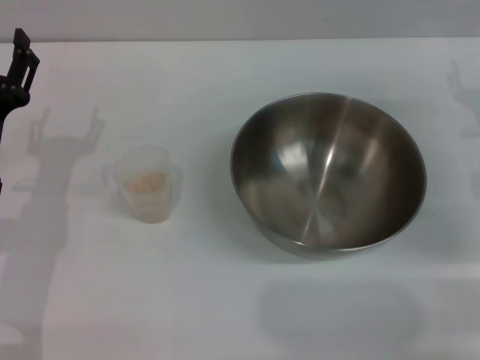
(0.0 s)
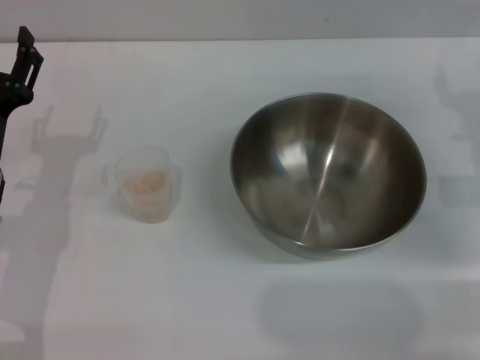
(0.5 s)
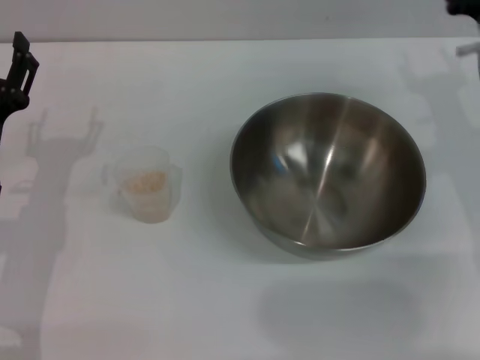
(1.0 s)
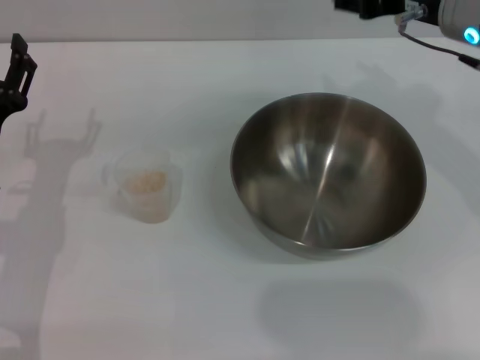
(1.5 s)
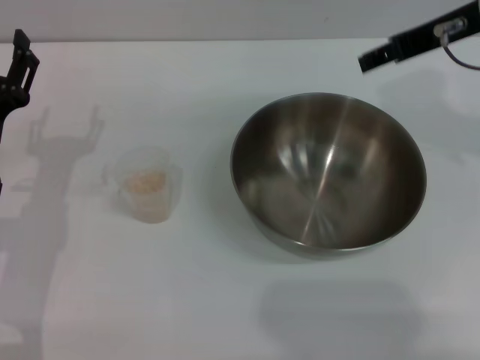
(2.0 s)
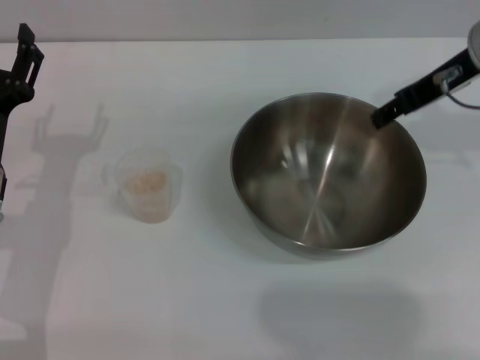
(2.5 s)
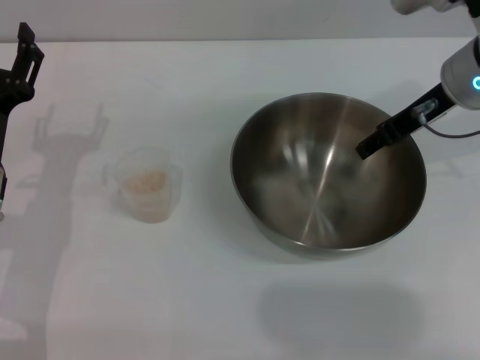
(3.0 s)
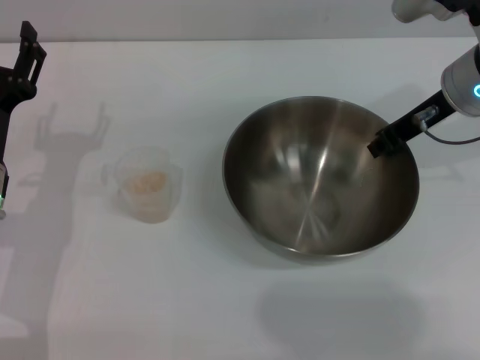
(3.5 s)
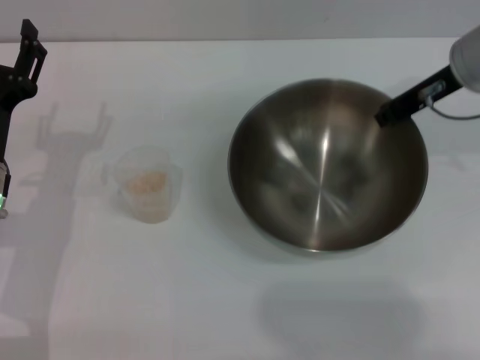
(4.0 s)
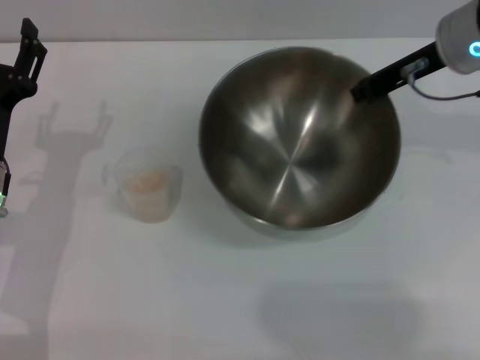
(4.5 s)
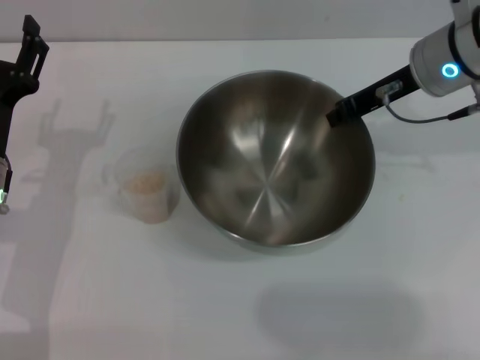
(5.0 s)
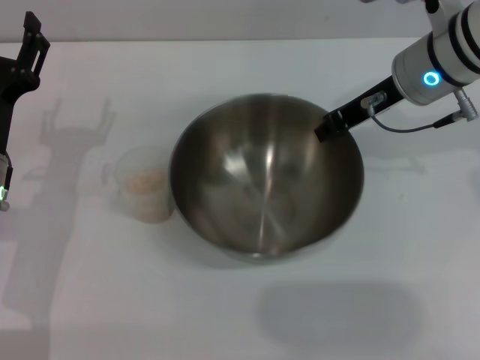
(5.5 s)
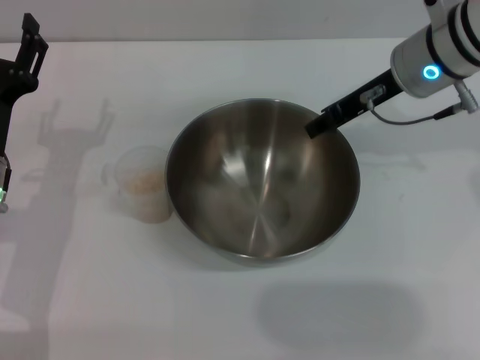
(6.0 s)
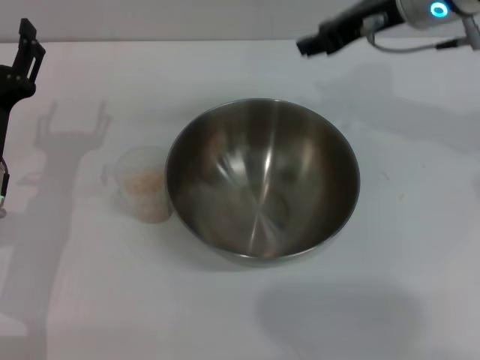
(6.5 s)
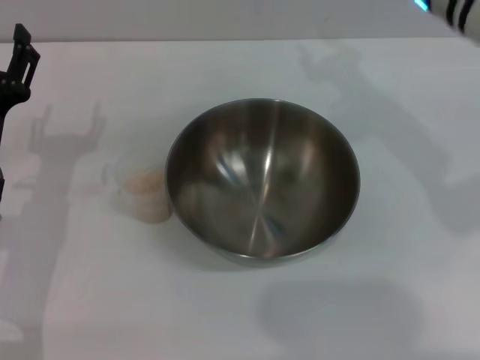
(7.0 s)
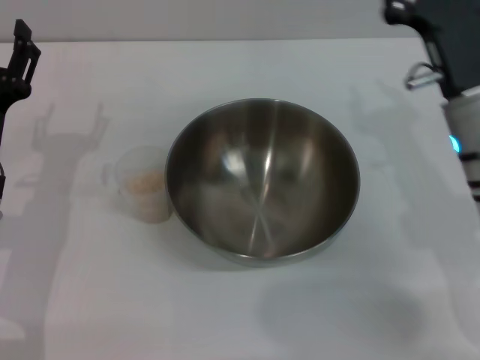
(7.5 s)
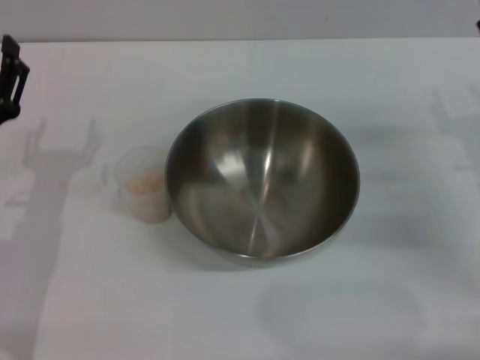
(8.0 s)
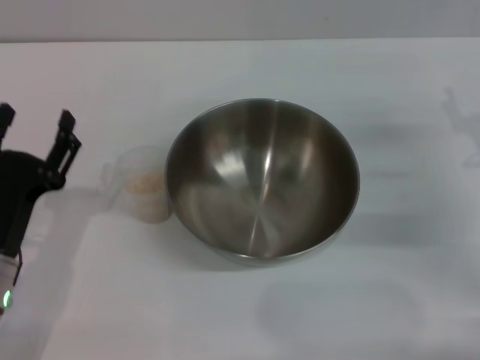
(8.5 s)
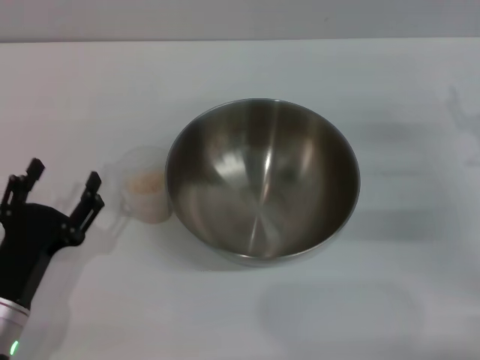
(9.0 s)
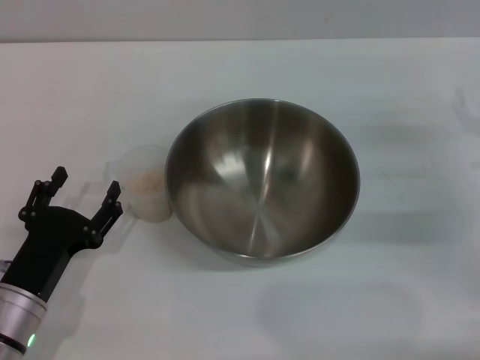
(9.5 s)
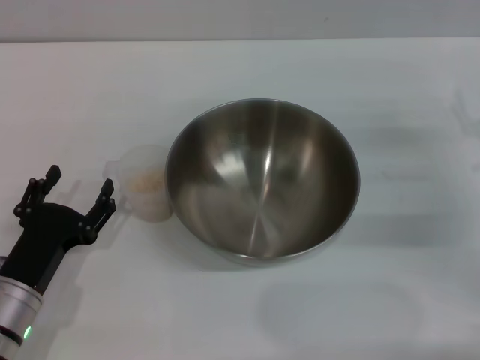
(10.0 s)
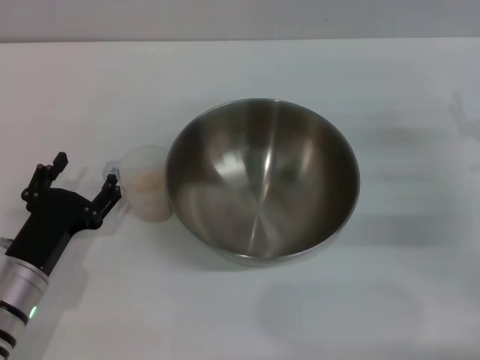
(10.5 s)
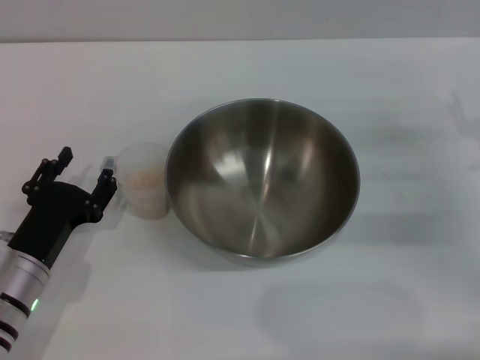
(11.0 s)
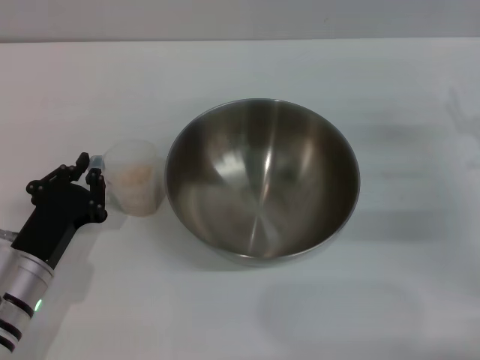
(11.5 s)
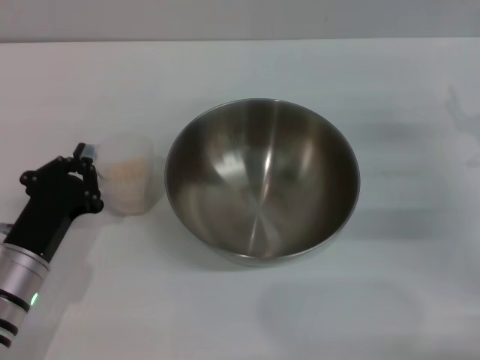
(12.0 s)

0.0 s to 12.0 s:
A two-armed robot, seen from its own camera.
Task of the whole recording: Place the bowl in the middle of the table with one hand and pour the rice from the grain cup into it with the other hand.
Step, 0.0 to 4.0 s: Pick up the bowl with the right gripper.
Step, 4.5 to 6.0 s: Place the bowl in the center of view with the right gripper.
Step, 6.5 to 12.0 s: Pick up the cup with rice in it with the left gripper.
0.0 to 2.0 s: The right gripper shifts about 15 cm upward and to the left.
2.0 to 4.0 s: The right gripper goes about 5 cm downward, and closes.
6.0 to 8.0 s: The right gripper is displaced to the right, downward and backward by roughly 20 cm, and opens up.
8.0 to 10.0 s: The left gripper heads backward and downward, covering about 10 cm.
10.0 to 12.0 s: The left gripper closes up.

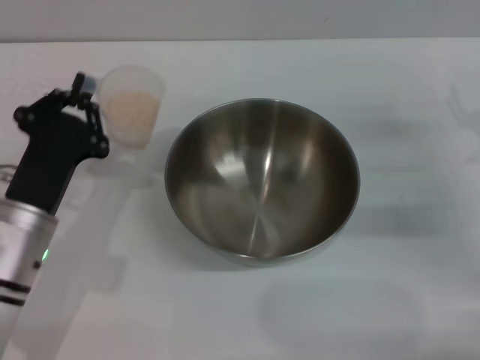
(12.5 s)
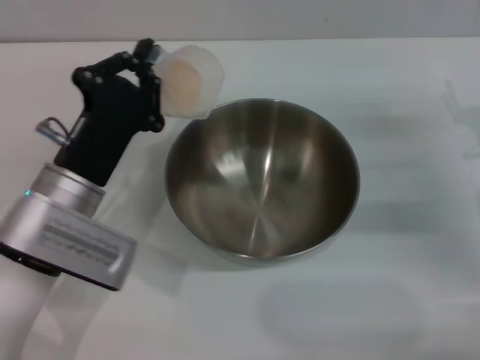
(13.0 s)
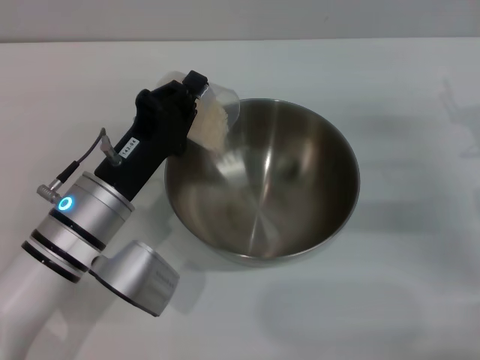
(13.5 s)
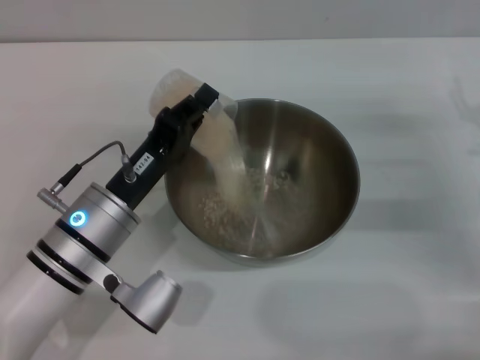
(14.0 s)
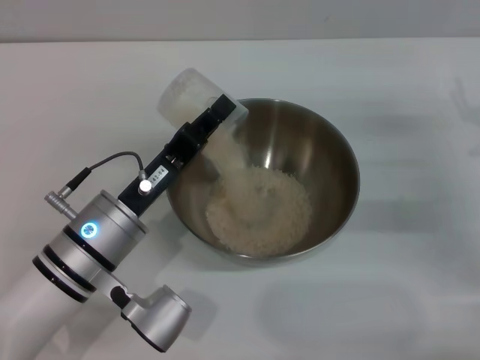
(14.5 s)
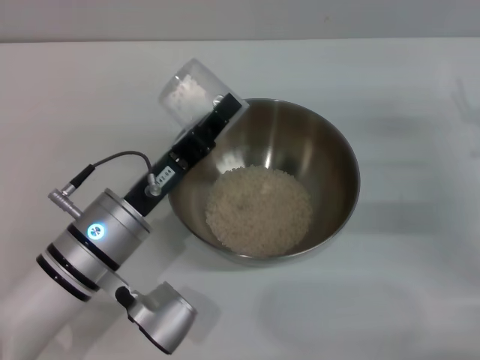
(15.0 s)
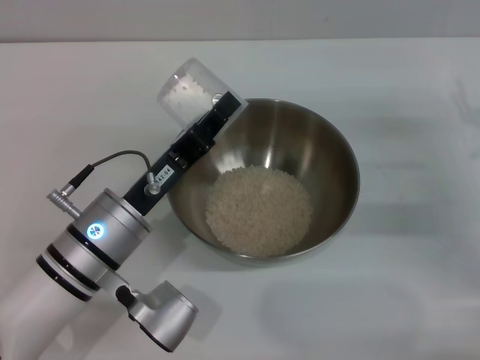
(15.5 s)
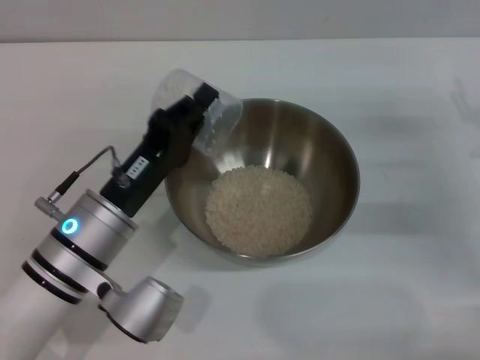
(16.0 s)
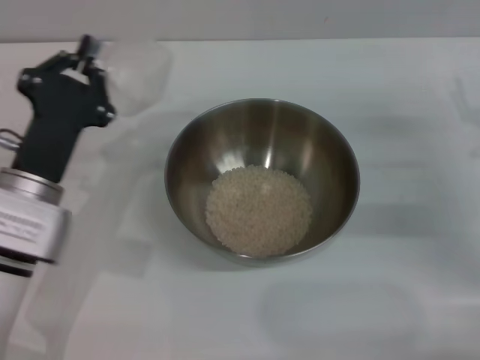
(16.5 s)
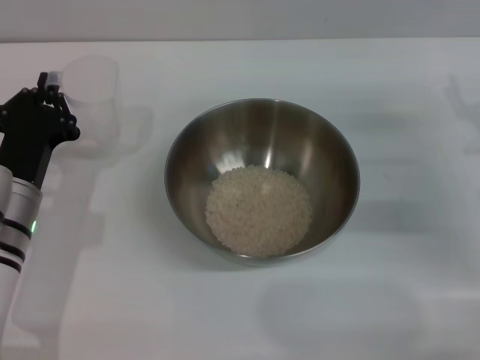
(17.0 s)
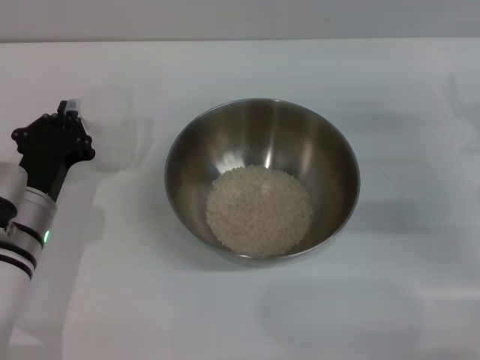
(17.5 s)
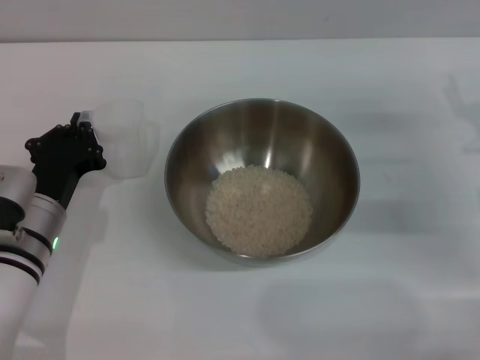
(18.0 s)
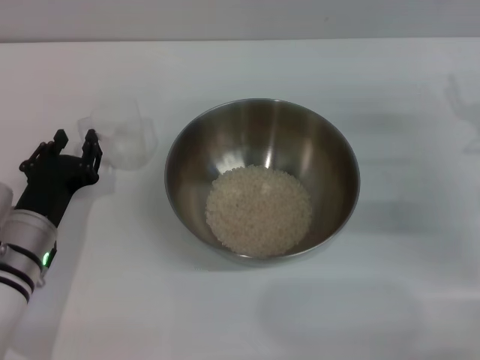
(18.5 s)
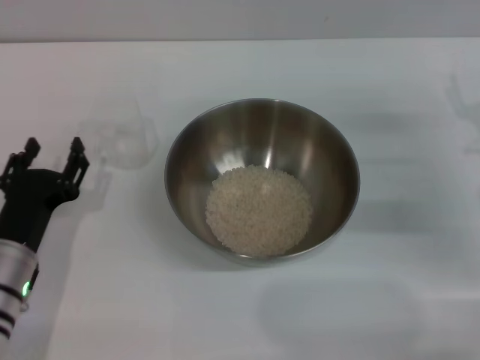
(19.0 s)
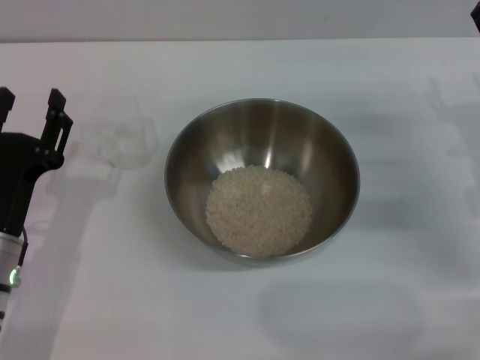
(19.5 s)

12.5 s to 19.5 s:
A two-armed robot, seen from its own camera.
Task of the whole recording: Place the bowl in the middle of the table with one hand and pour the rice from the grain cup into it with the other hand.
Step, 12.5 to 16.0 s: Pour the rice from the cup into the bowl with the left gripper.
Step, 16.5 to 18.5 s: Place the cup on the table with the left gripper.
12.5 to 14.5 s: The left gripper moves to the right, some 10 cm.
14.5 to 16.0 s: There are only small adjustments of the grippers.
16.0 to 17.5 s: The left gripper goes roughly 5 cm to the left.
17.5 to 19.5 s: The left gripper moves backward, about 5 cm, and opens.

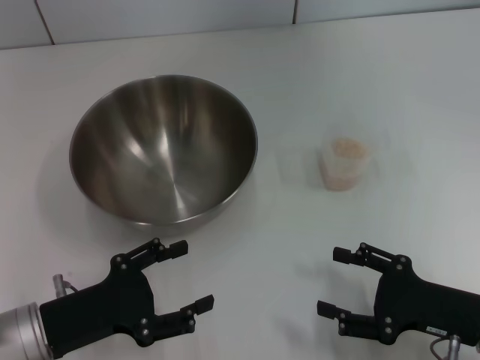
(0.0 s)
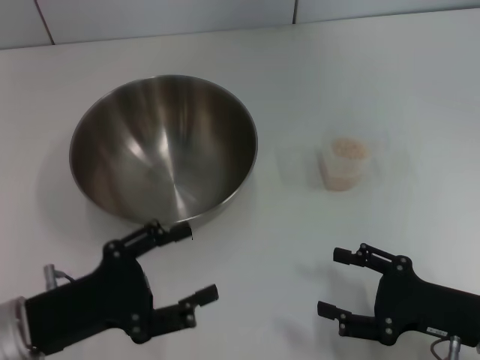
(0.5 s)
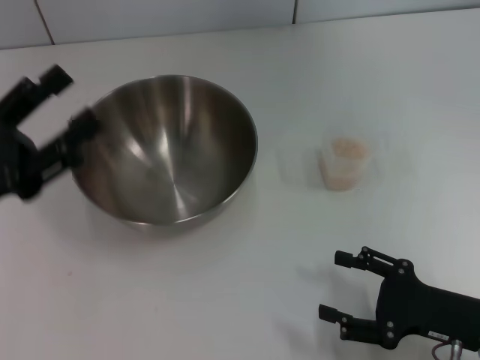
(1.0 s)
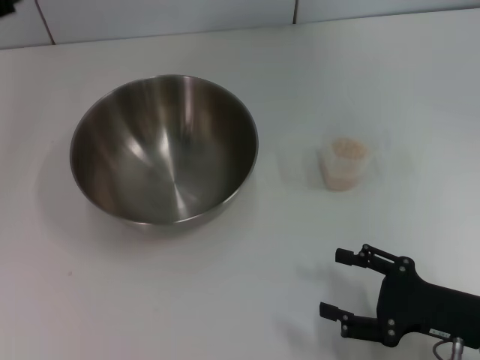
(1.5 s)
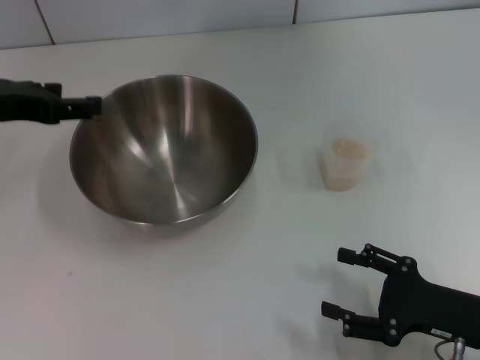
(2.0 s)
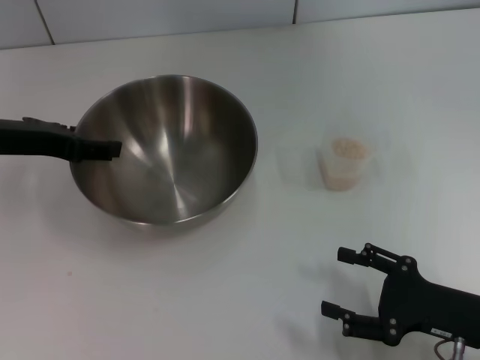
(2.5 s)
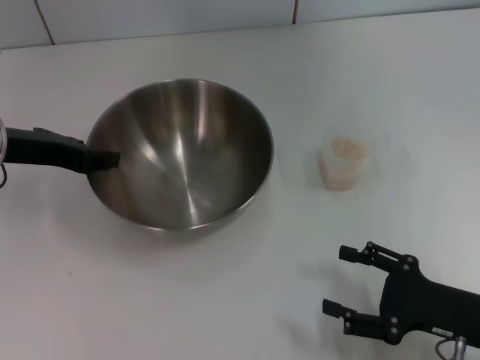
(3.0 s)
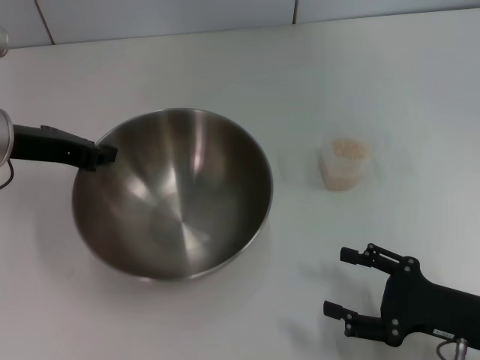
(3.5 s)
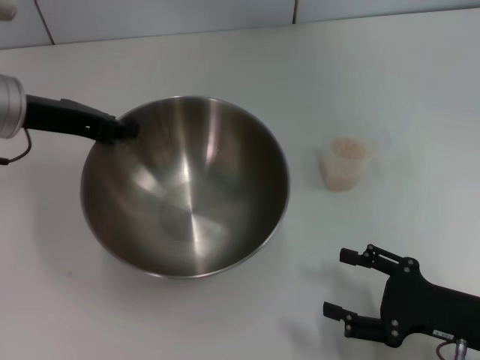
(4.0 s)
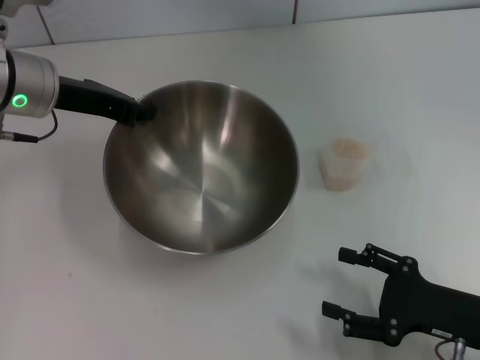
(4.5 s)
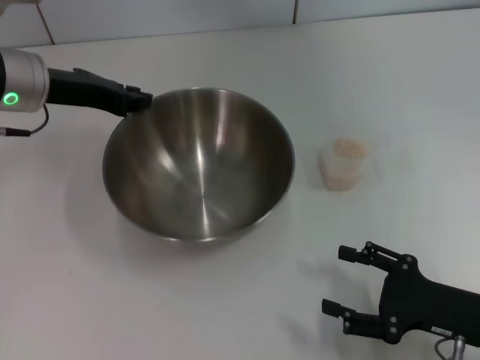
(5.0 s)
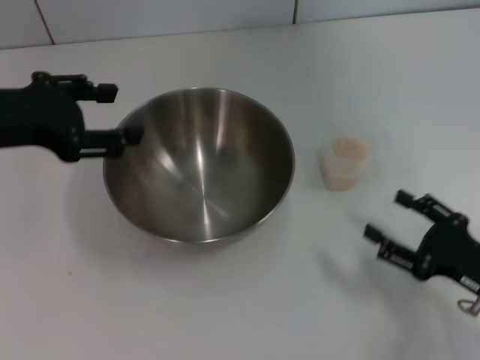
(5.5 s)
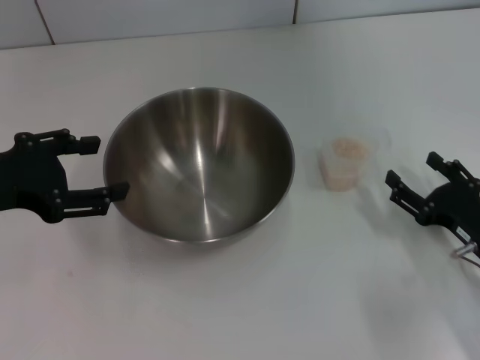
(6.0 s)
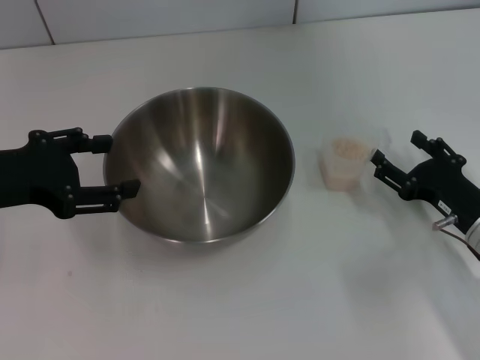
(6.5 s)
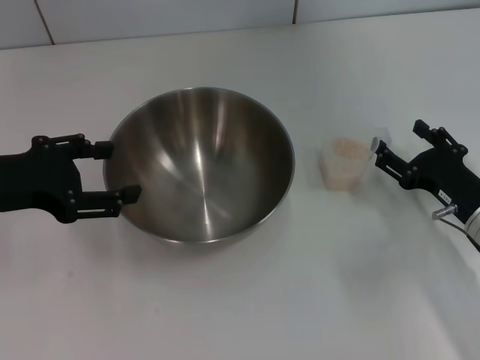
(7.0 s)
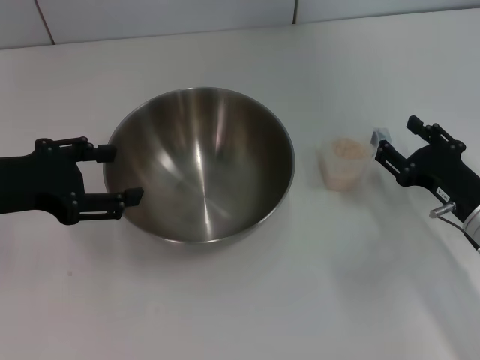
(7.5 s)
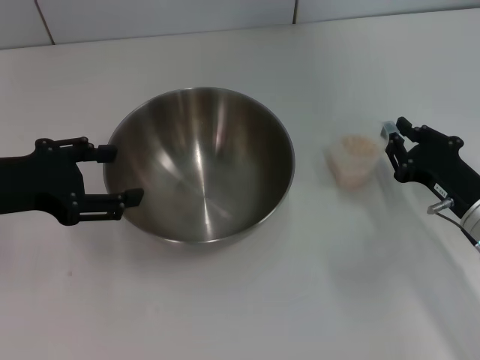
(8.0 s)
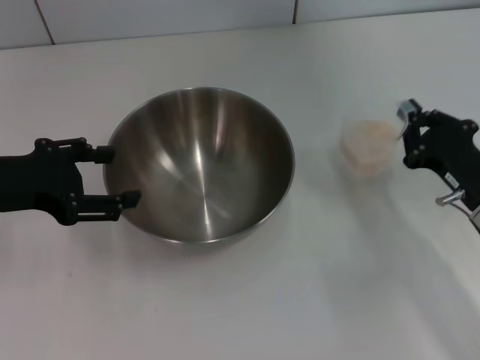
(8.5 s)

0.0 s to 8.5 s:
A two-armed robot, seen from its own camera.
Task of the whole recording: Place the bowl in the middle of the table with one hand and pour the rice from the grain cup into it with the other hand.
Step, 0.0 to 3.5 s: Pick up the bowl with the left gripper.
Step, 4.5 to 5.5 s: Place the bowl in the center of view with the left gripper.
0.0 to 2.0 s: The left gripper travels upward and forward by approximately 20 cm.
2.0 to 4.0 s: The left gripper moves roughly 5 cm, and closes its fingers.
4.0 to 6.5 s: The right gripper travels forward by about 10 cm. Meanwhile the left gripper moves backward, roughly 10 cm, and opens up.
6.5 to 8.5 s: The right gripper closes up.
